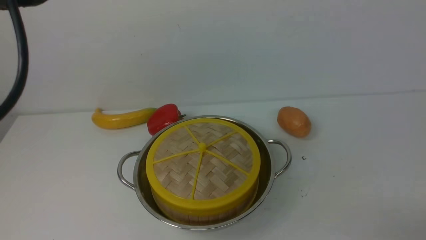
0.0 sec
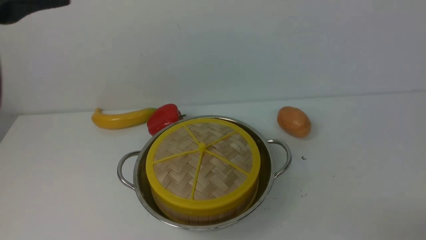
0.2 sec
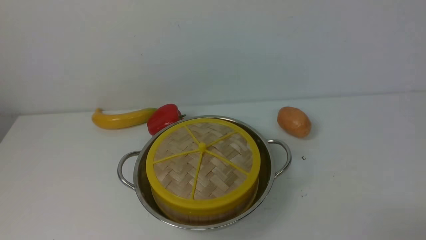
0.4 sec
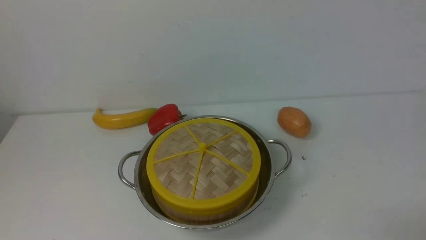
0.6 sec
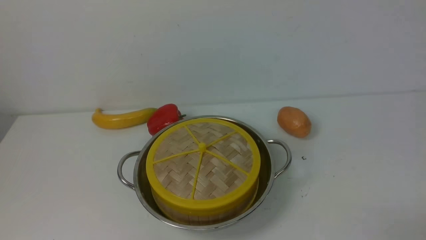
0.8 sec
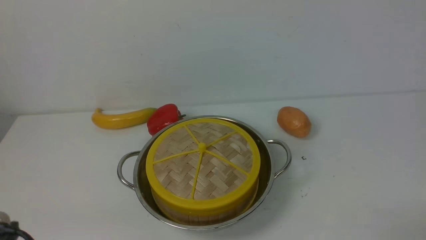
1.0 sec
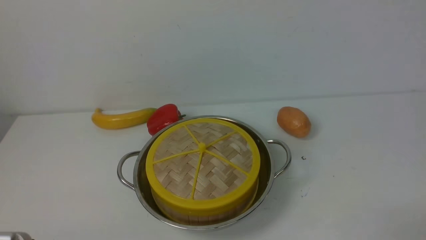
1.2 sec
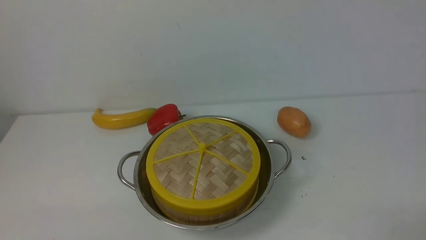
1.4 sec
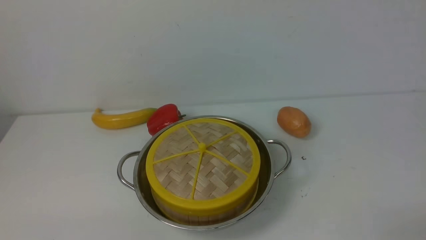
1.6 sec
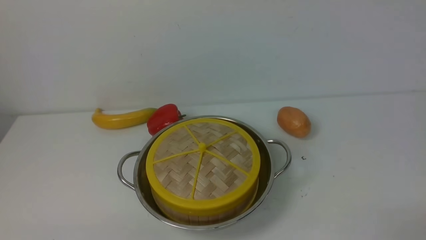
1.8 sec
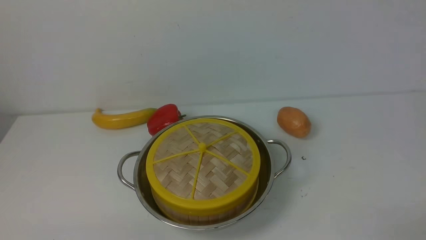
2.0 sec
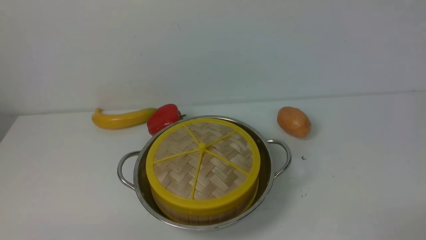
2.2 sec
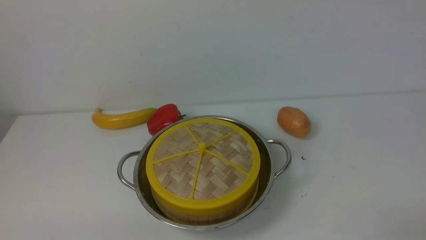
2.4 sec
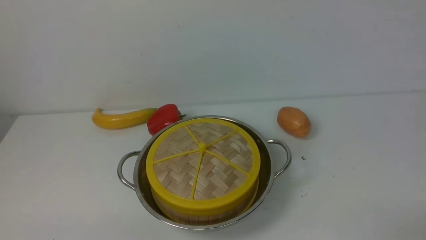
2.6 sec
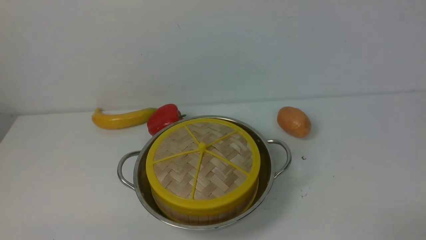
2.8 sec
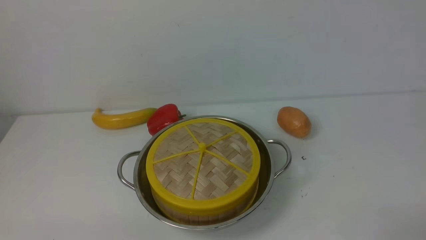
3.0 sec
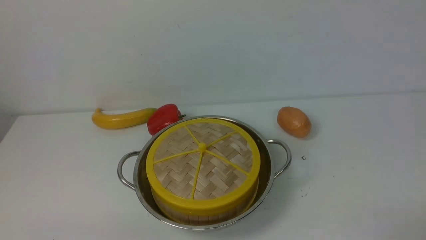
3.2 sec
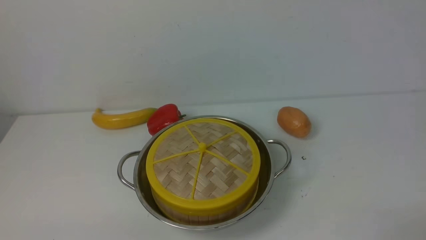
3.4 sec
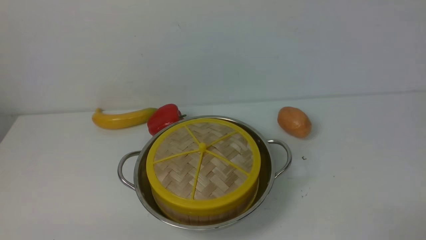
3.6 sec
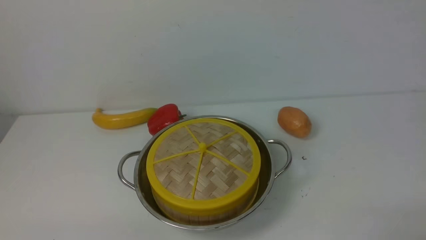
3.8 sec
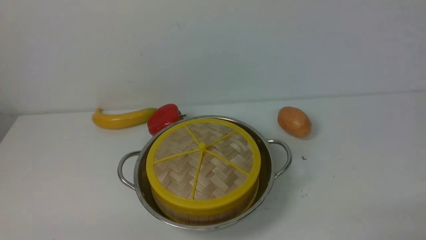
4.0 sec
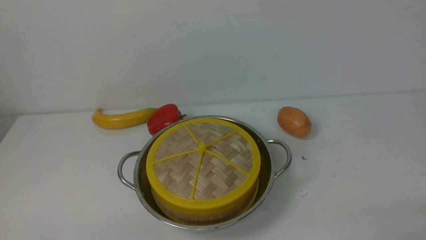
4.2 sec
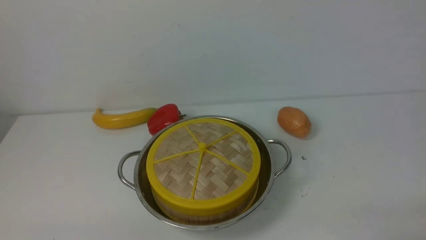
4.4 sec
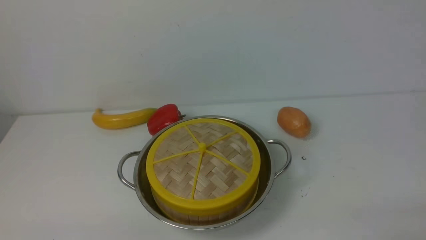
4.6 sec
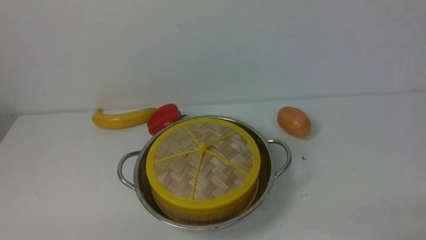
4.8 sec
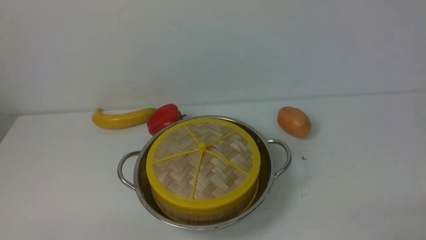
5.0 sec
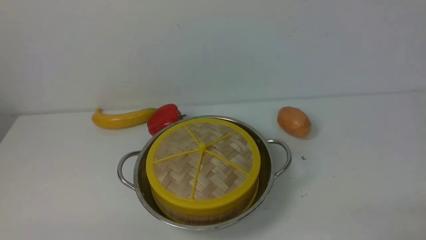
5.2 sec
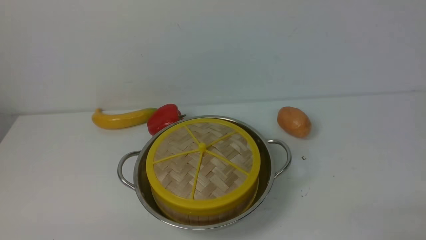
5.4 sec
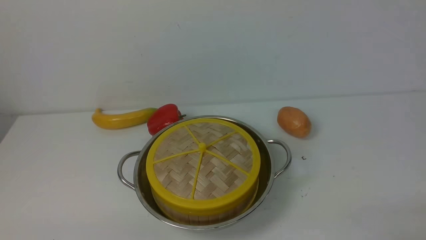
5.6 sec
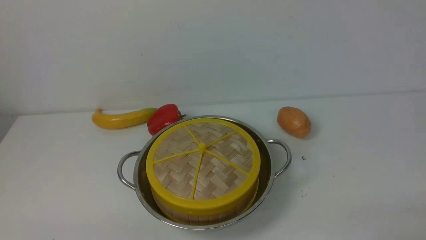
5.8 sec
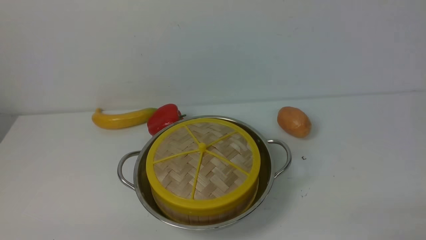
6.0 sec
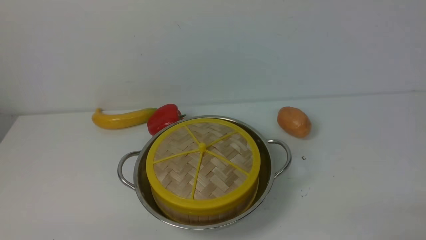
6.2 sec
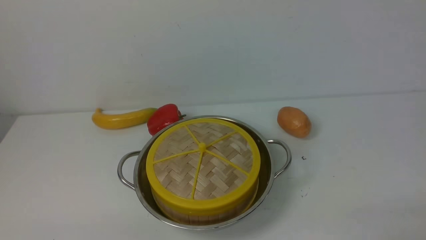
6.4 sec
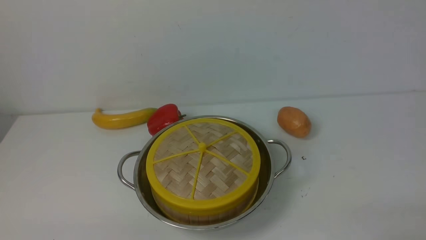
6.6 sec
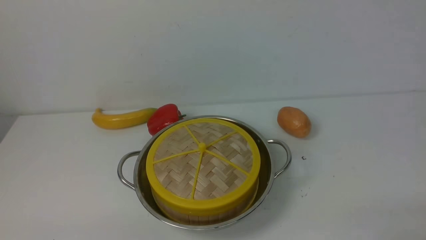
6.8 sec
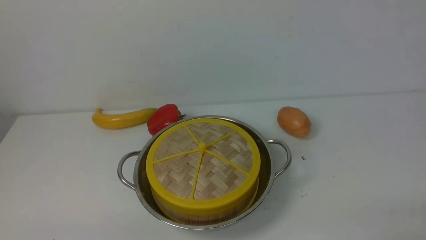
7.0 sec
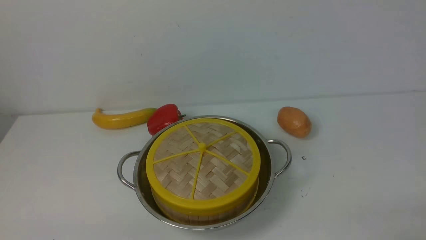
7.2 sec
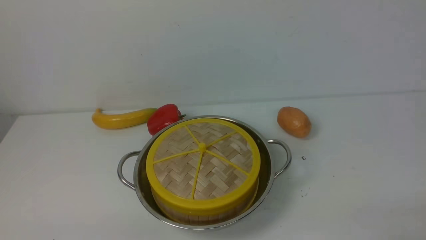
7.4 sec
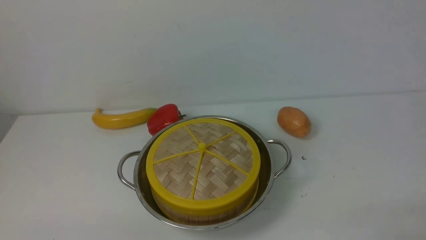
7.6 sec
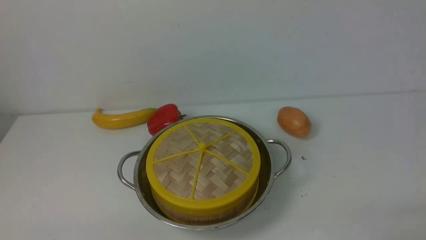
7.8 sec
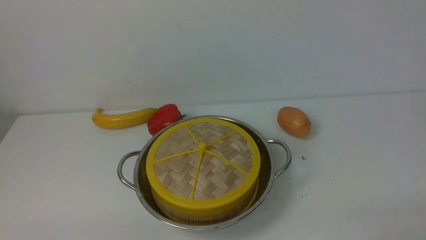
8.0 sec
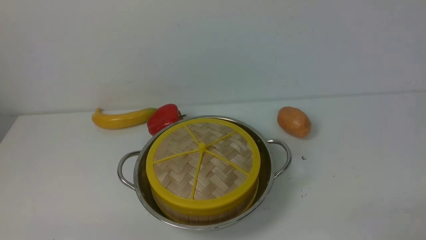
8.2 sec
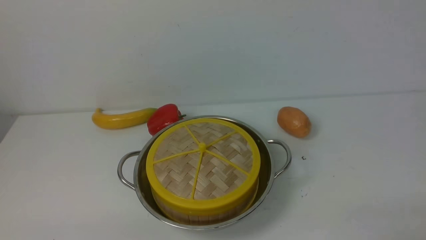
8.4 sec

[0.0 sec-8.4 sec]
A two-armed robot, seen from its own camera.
Task of the whole recording: place the steamer in the pot on the white table, and put the lid on the steamer.
0.0 sec to 1.4 sec: The left gripper shifts about 35 cm downward and backward.
4.2 sec to 8.4 sec: Both grippers stay about where they are.
